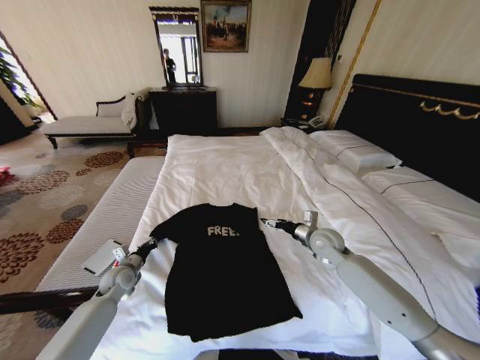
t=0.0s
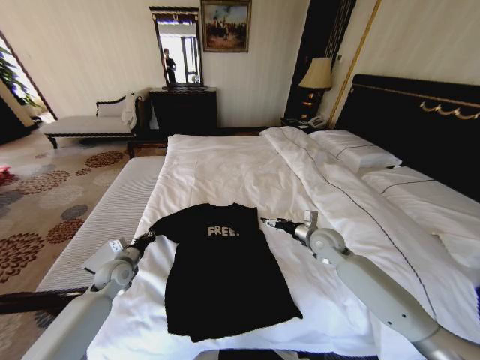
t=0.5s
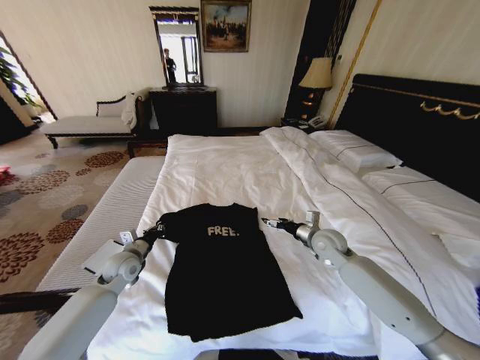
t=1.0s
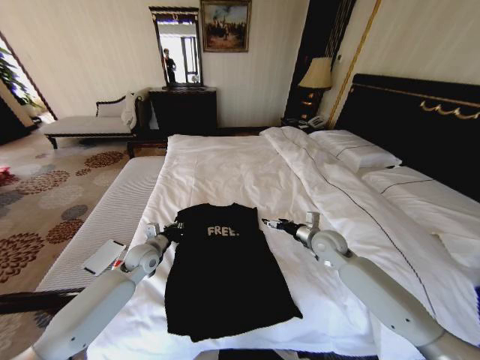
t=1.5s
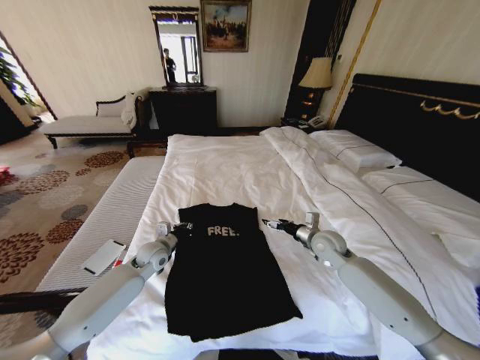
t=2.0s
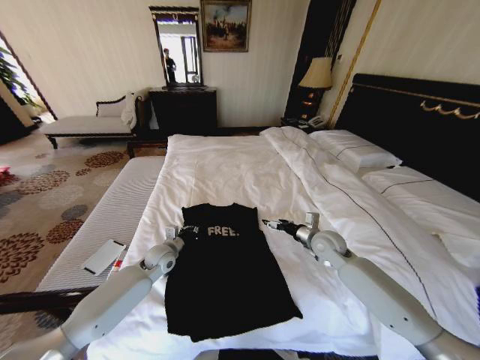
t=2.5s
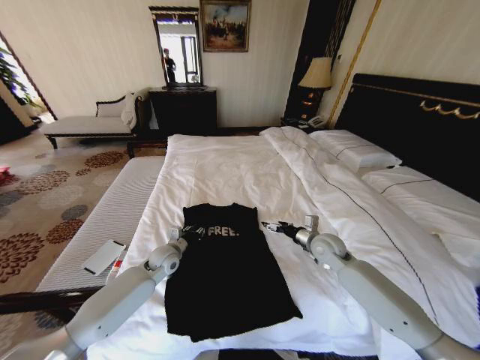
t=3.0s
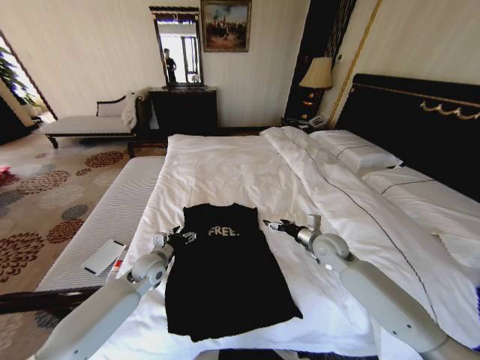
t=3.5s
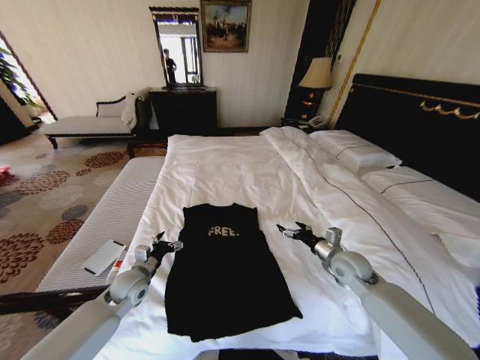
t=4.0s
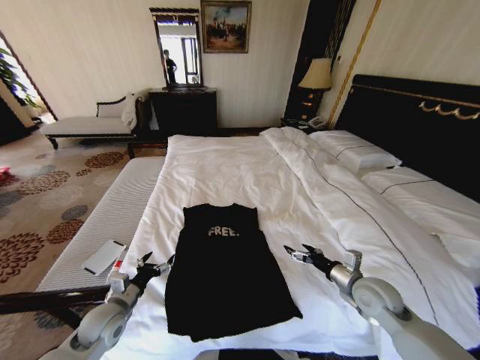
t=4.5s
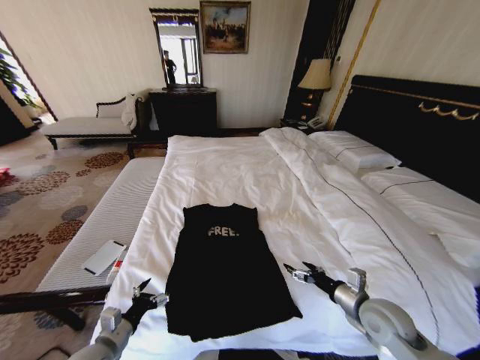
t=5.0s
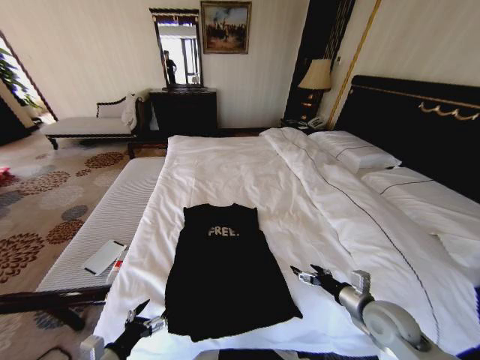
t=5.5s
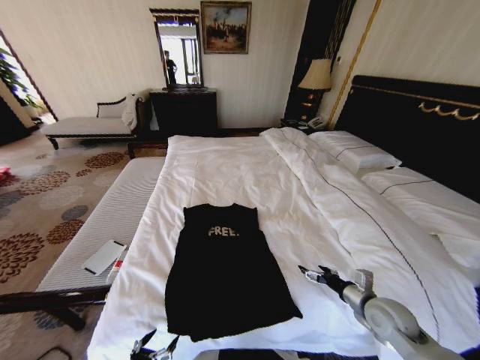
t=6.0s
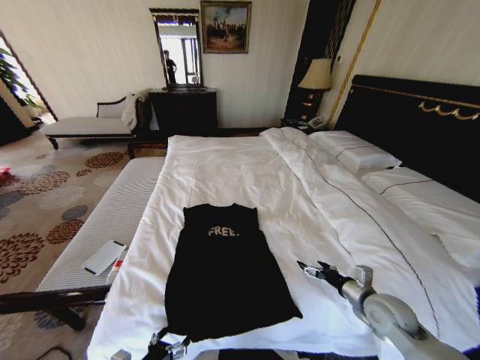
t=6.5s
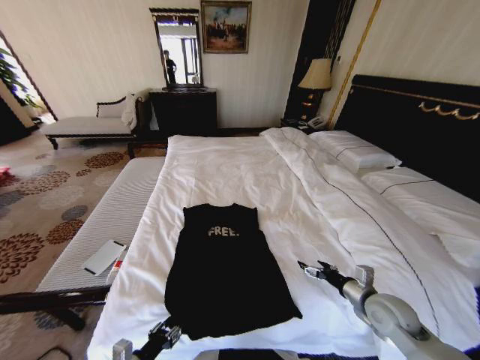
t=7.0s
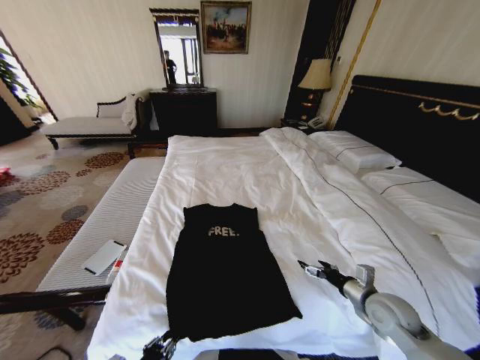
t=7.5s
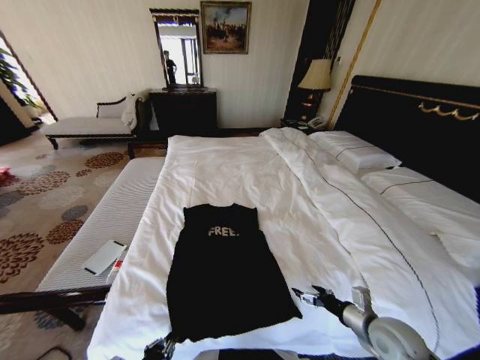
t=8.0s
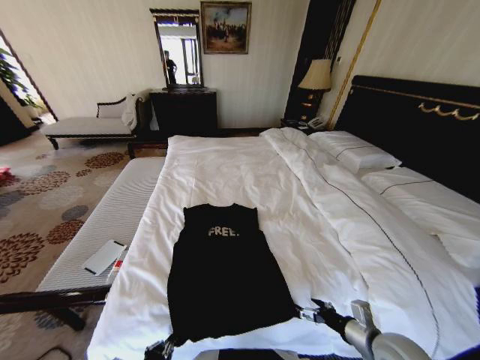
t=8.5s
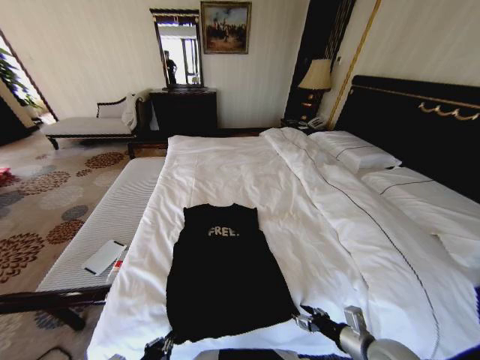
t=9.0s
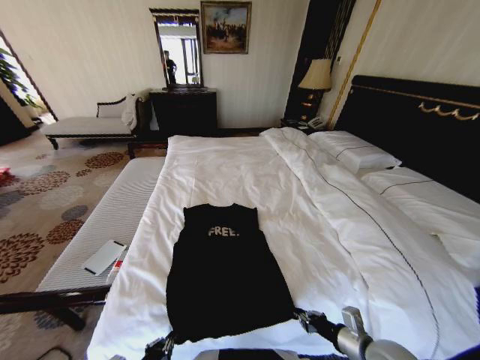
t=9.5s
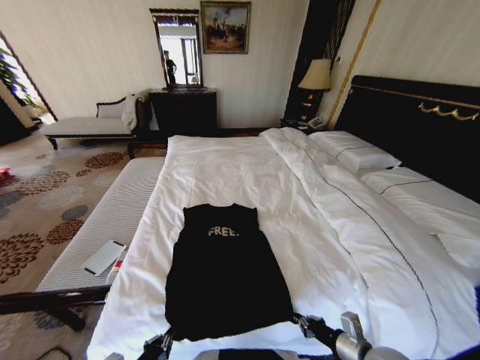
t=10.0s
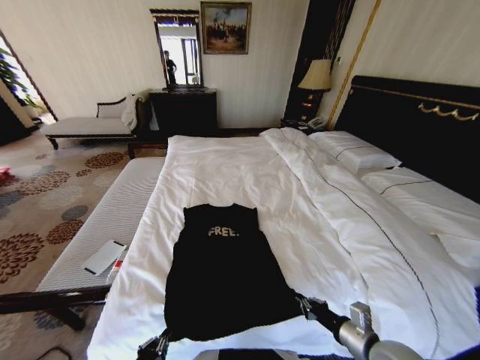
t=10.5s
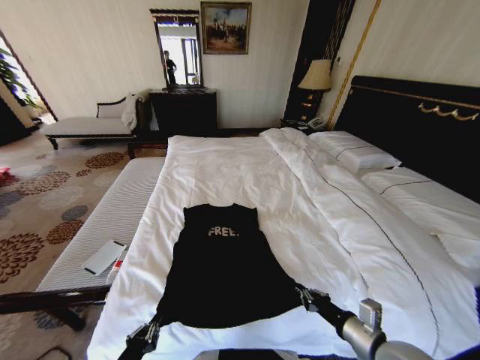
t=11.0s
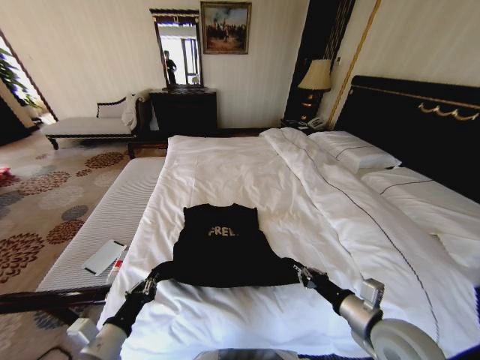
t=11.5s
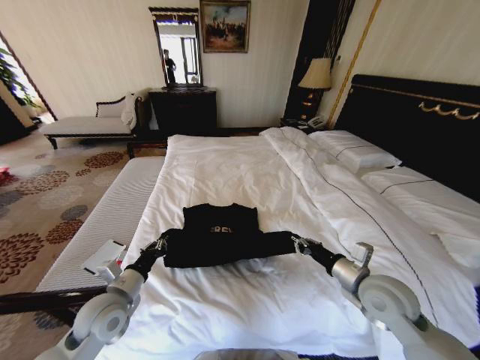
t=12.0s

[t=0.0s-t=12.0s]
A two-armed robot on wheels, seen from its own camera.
Task of the whole recording: Fold the clothes on the bed.
t=0.0s to t=2.0s: The left gripper travels to the right, upward and forward by some 15 cm.
t=2.0s to t=4.0s: Both grippers travel together backward, approximately 5 cm. The left gripper opens.
t=4.0s to t=6.0s: The right gripper heads backward and to the right, covering some 15 cm, while the left gripper is displaced backward by some 30 cm.
t=6.0s to t=8.0s: The left gripper closes up.
t=8.0s to t=10.0s: The right gripper heads backward, covering roughly 5 cm, and closes its fingers.
t=10.0s to t=12.0s: The grippers both shift forward and upward by approximately 20 cm.

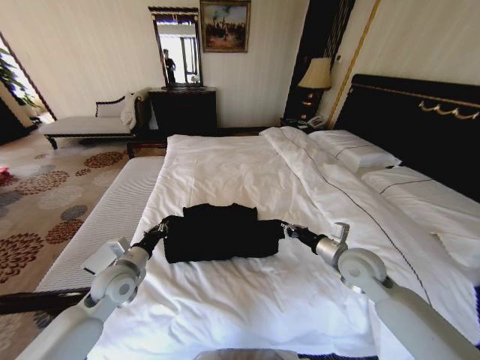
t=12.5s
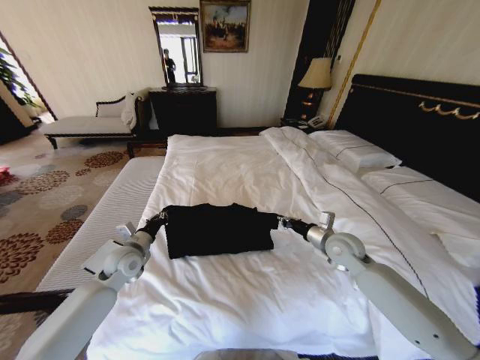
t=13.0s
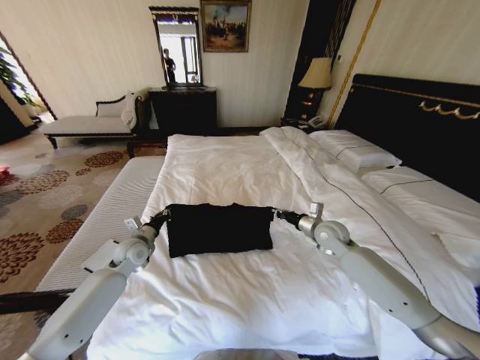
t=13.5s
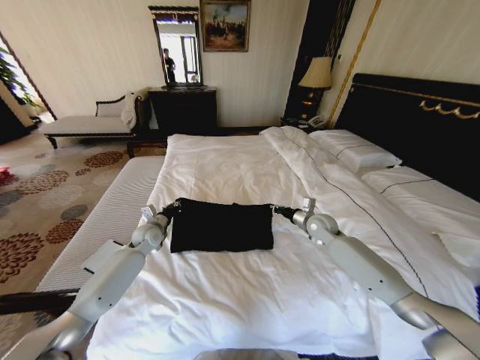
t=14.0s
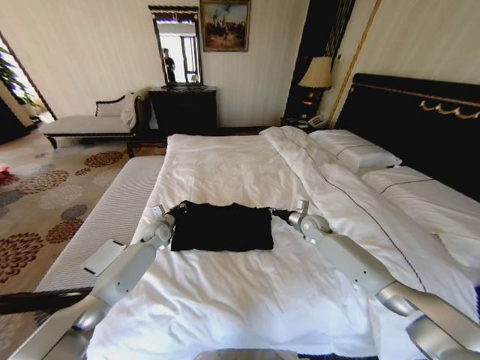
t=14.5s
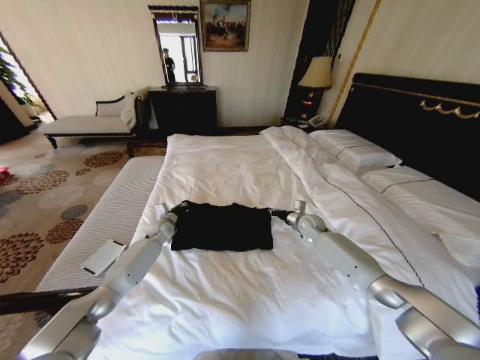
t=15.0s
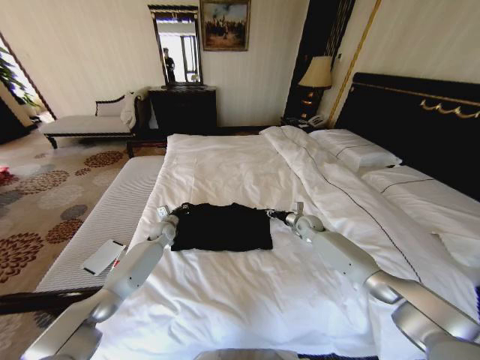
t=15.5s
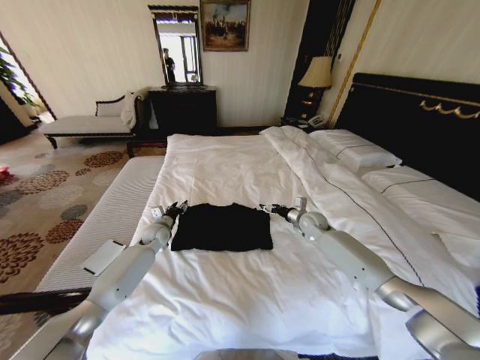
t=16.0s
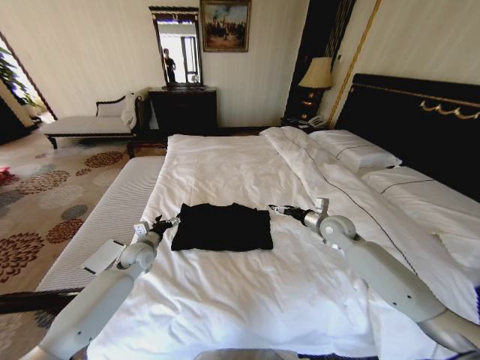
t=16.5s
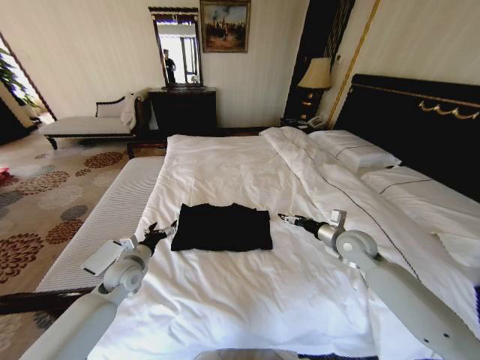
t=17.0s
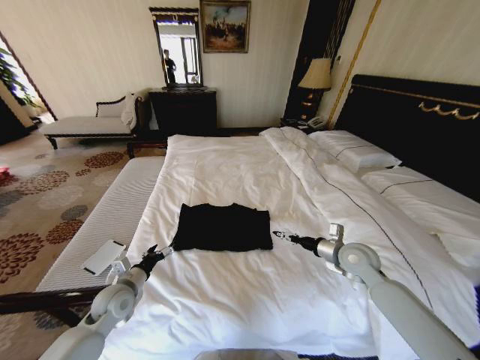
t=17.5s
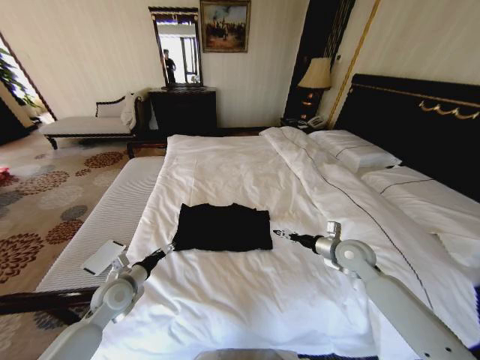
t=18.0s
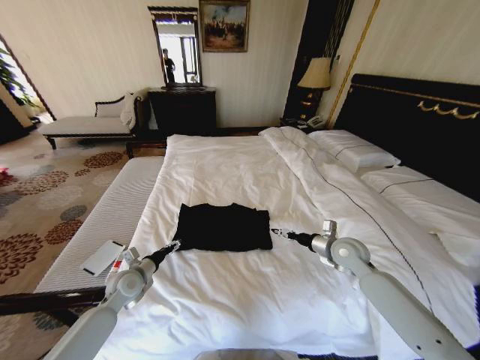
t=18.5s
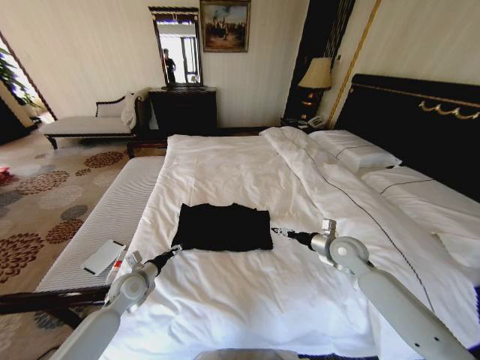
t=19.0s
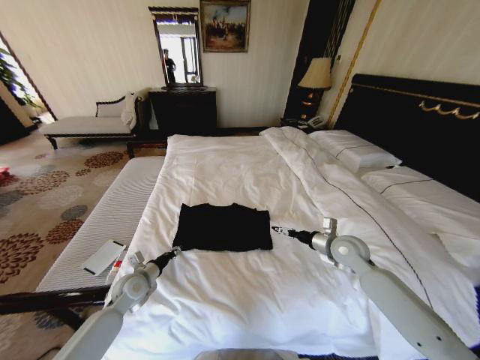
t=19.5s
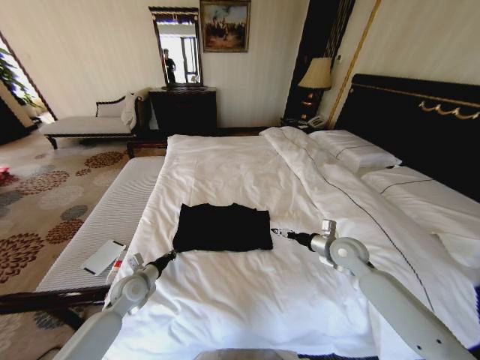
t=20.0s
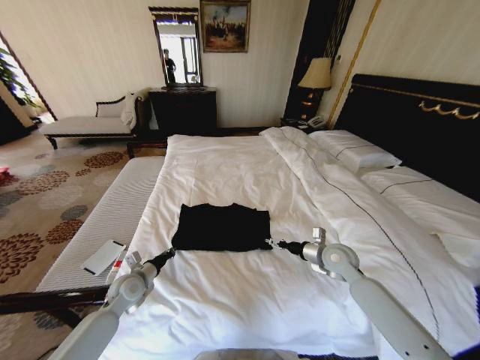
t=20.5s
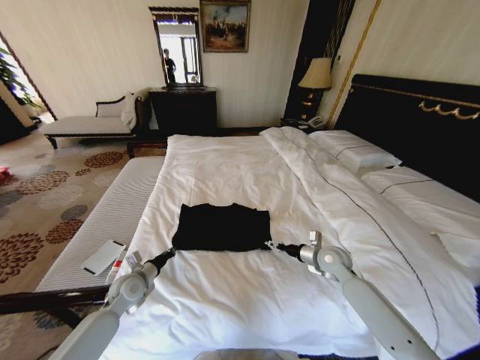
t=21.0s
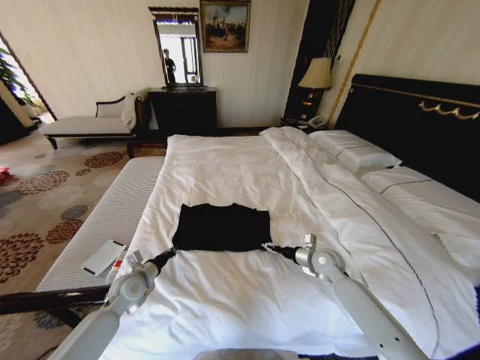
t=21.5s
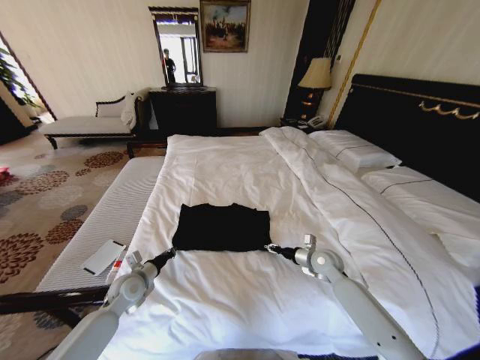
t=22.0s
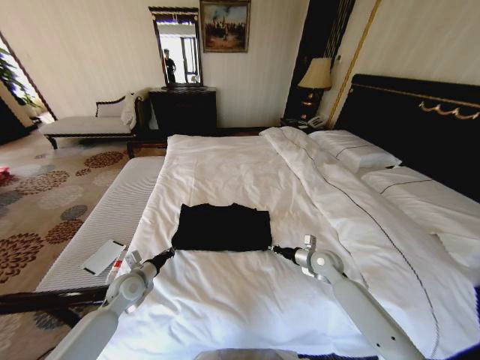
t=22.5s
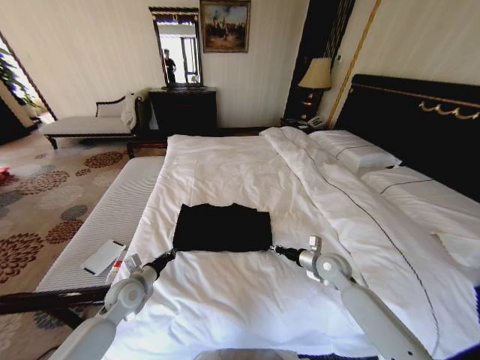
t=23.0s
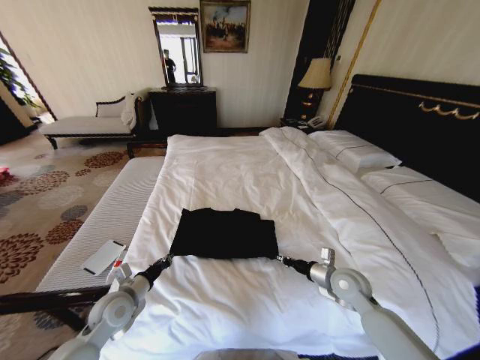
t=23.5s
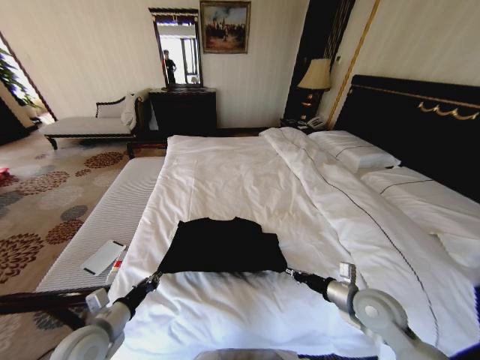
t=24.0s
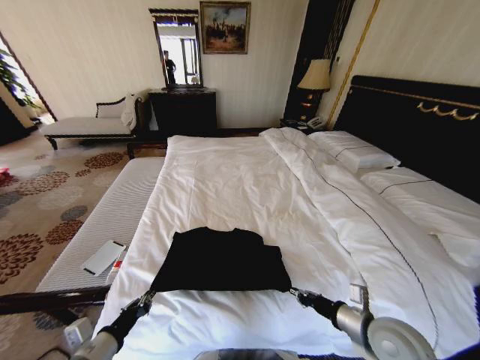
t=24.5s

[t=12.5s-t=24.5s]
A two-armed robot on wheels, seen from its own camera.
Task of the whole recording: Fold the clothes on the bed.
t=12.5s to t=14.5s: The right gripper moves forward and downward, roughly 20 cm, while the left gripper goes some 20 cm forward.
t=14.5s to t=16.5s: The right gripper heads upward and backward, covering roughly 10 cm, and opens up, while the left gripper travels backward by about 10 cm, and opens its fingers.
t=16.5s to t=18.5s: Both grippers move backward, about 10 cm.
t=18.5s to t=20.5s: The left gripper closes.
t=20.5s to t=22.5s: The right gripper travels downward by some 5 cm, and closes.
t=22.5s to t=24.5s: The two grippers go about 20 cm backward.

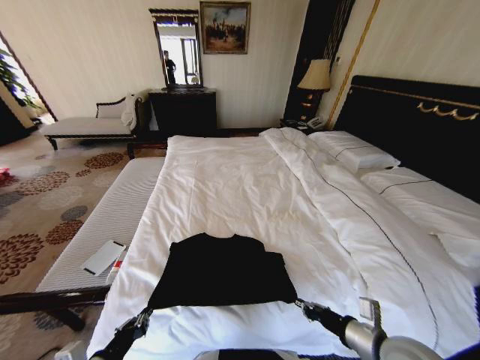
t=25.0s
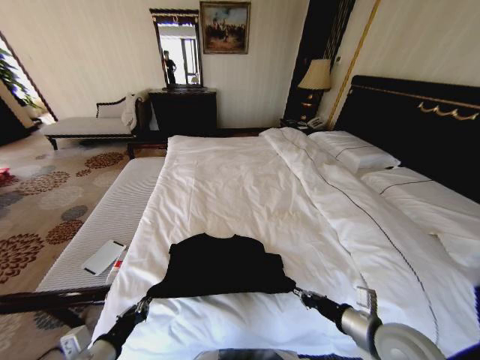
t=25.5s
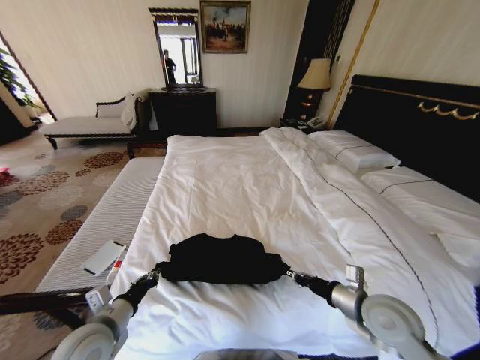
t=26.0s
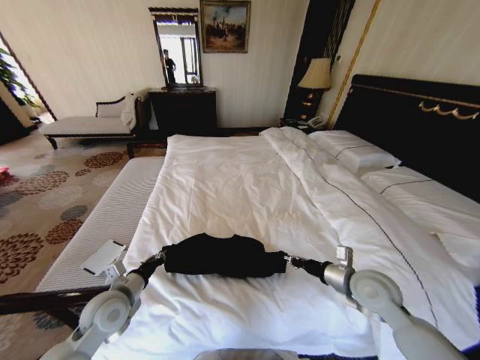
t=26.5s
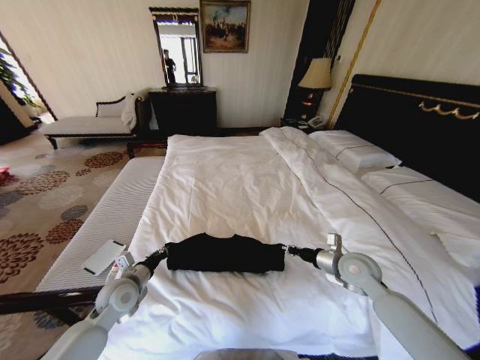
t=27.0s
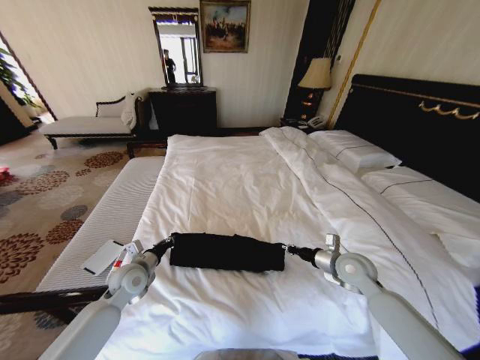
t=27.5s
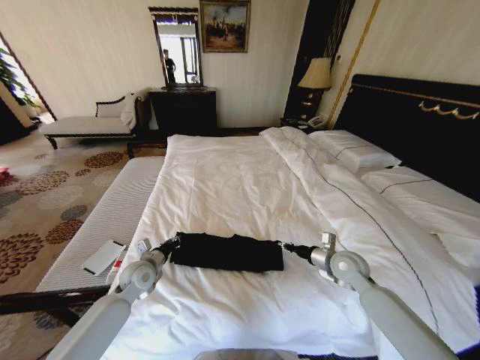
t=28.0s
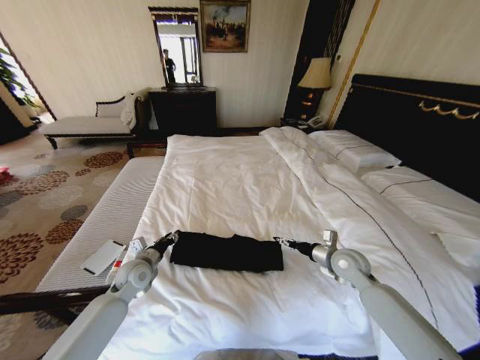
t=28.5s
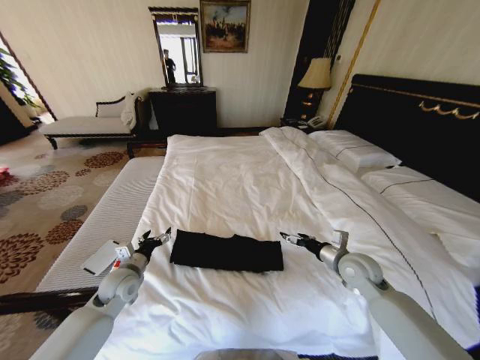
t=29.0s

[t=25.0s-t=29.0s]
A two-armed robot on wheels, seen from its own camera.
Task of the whole recording: Fold the clothes on the bed.
t=25.0s to t=27.0s: Both grippers move forward, some 20 cm.
t=27.0s to t=29.0s: The right gripper opens, while the left gripper opens.
